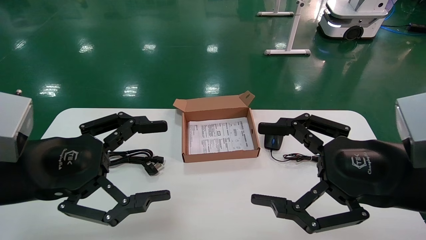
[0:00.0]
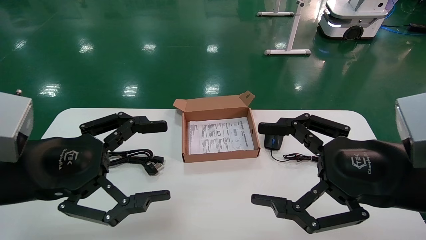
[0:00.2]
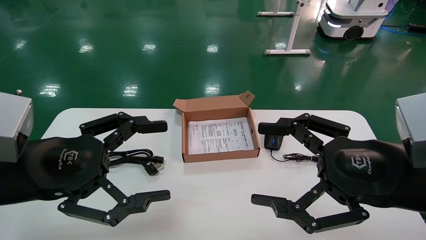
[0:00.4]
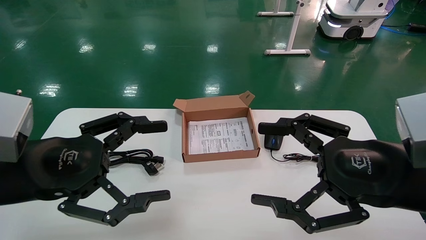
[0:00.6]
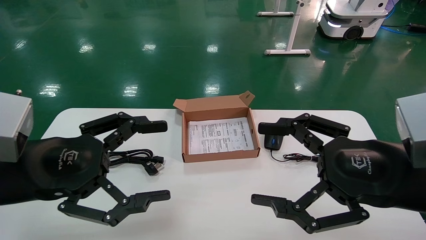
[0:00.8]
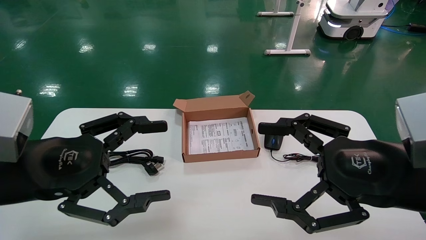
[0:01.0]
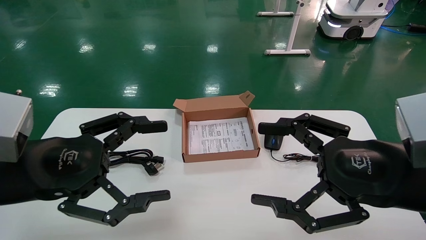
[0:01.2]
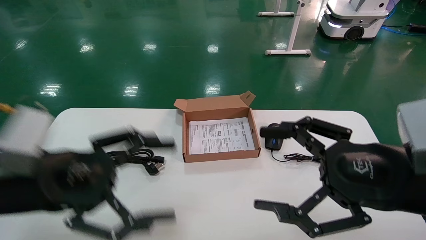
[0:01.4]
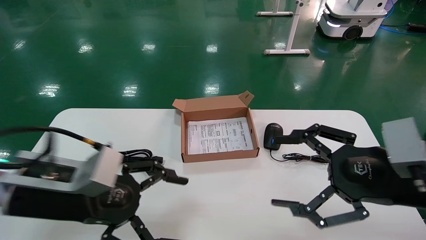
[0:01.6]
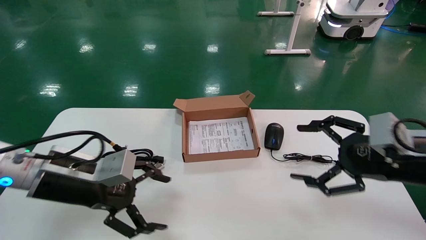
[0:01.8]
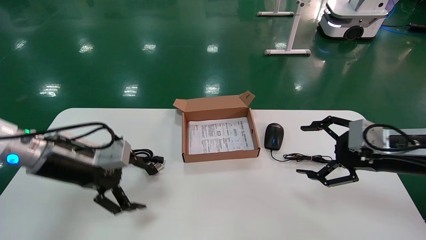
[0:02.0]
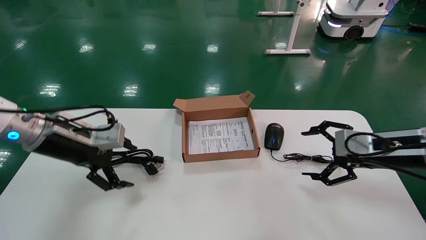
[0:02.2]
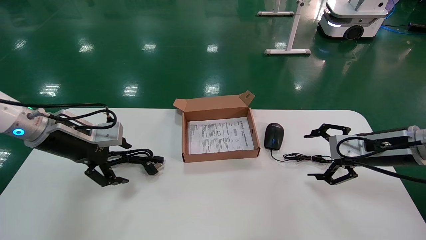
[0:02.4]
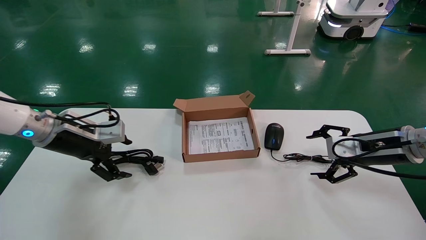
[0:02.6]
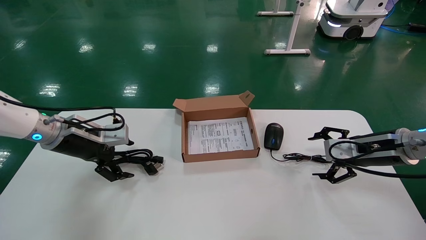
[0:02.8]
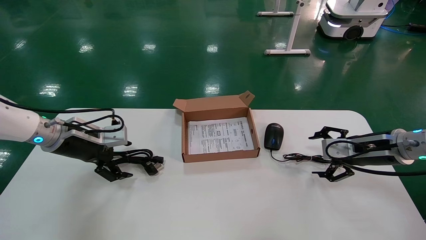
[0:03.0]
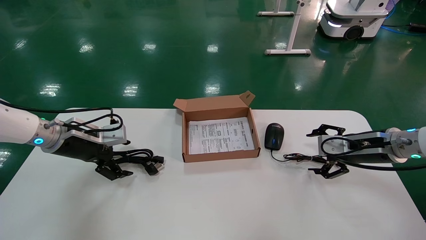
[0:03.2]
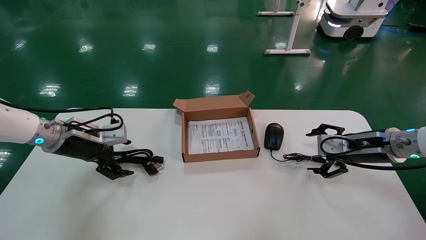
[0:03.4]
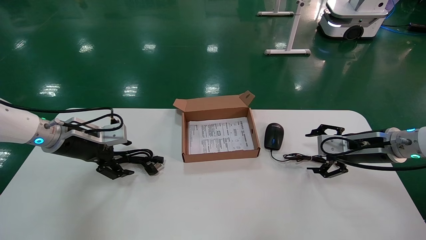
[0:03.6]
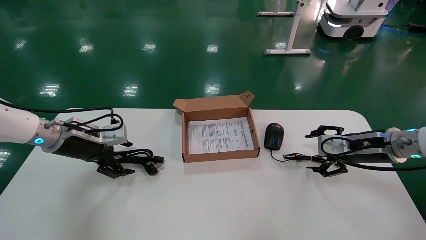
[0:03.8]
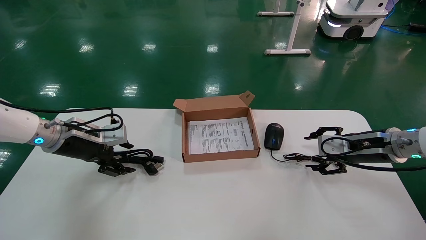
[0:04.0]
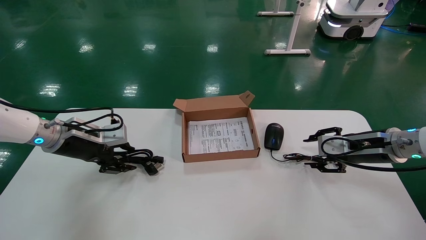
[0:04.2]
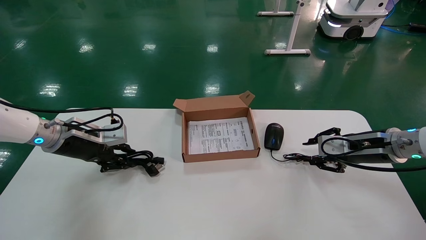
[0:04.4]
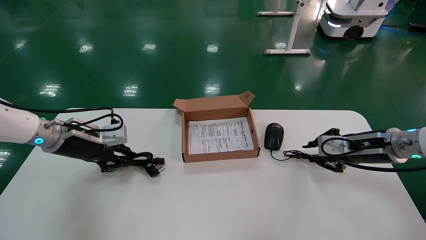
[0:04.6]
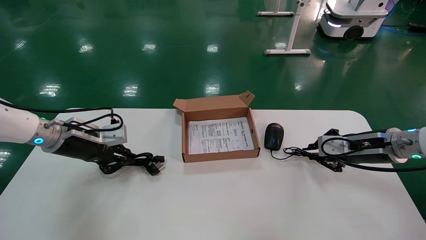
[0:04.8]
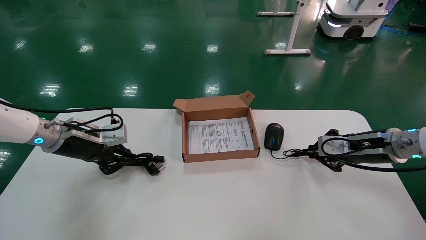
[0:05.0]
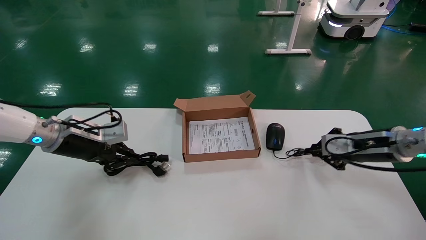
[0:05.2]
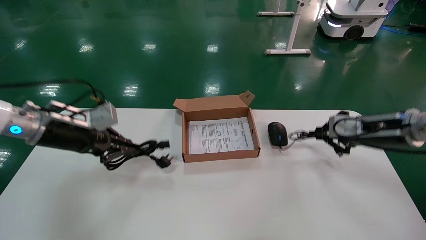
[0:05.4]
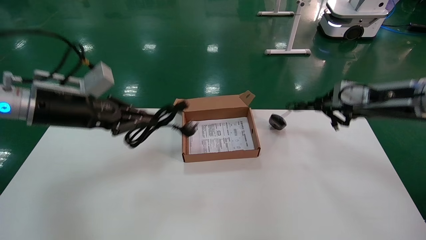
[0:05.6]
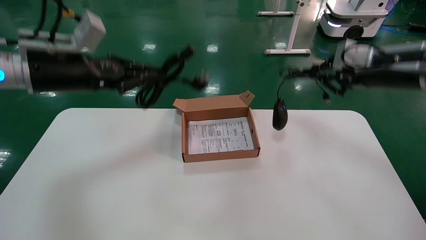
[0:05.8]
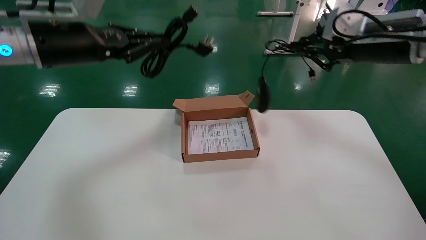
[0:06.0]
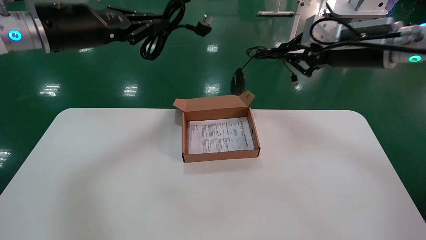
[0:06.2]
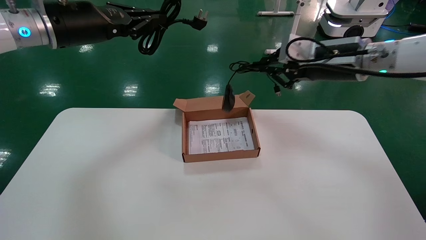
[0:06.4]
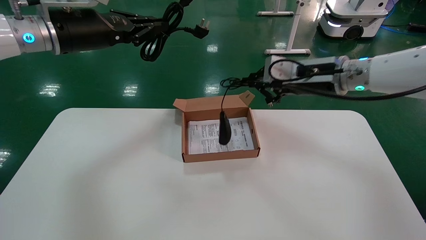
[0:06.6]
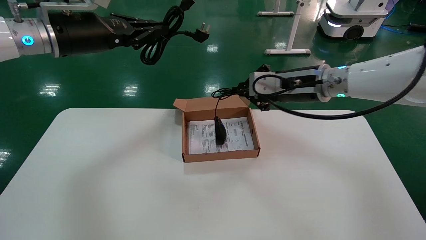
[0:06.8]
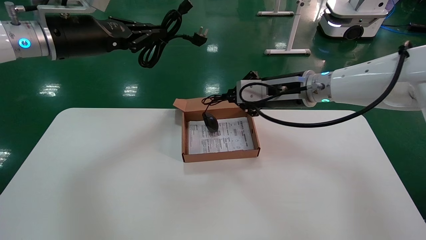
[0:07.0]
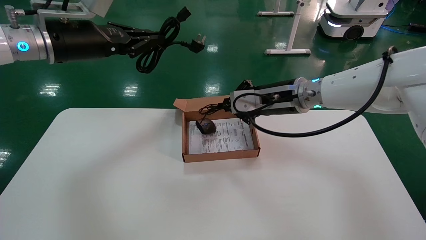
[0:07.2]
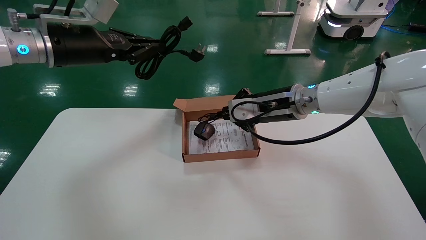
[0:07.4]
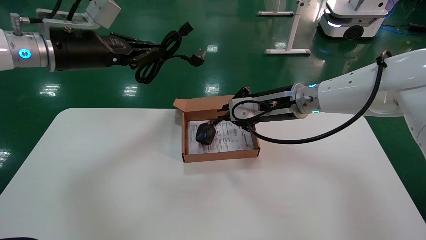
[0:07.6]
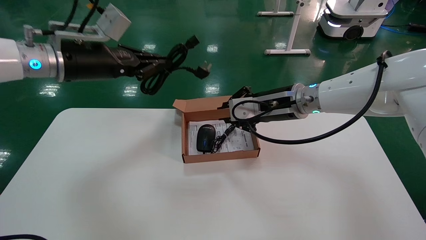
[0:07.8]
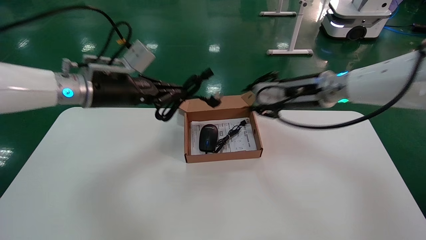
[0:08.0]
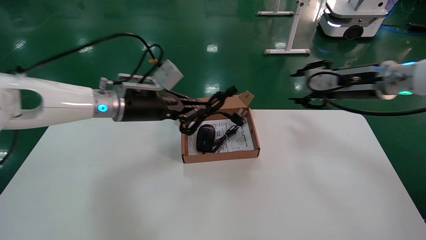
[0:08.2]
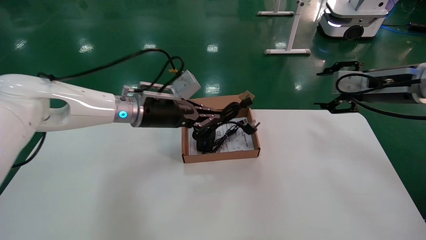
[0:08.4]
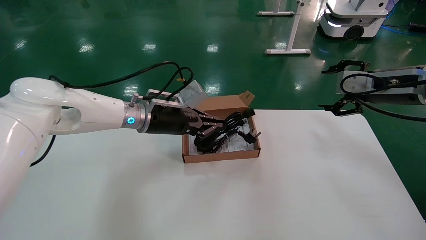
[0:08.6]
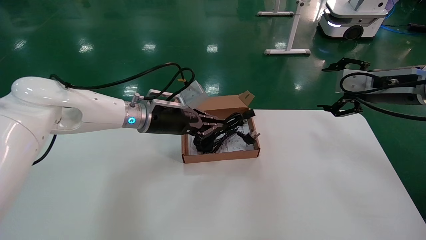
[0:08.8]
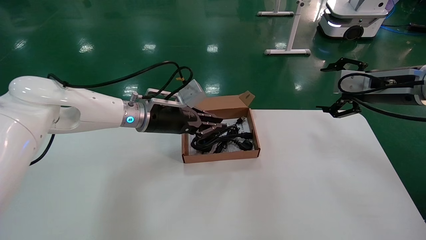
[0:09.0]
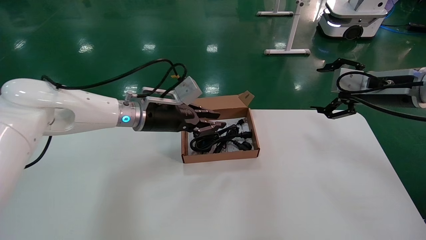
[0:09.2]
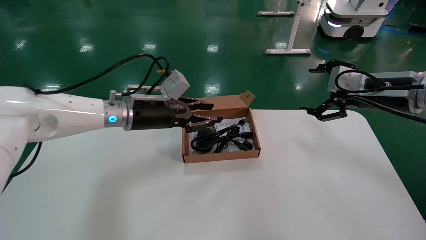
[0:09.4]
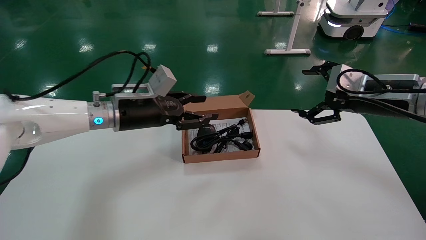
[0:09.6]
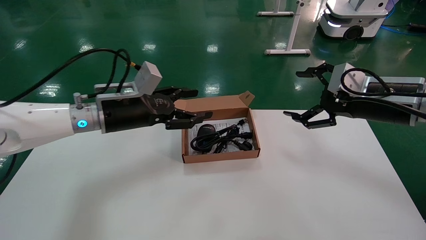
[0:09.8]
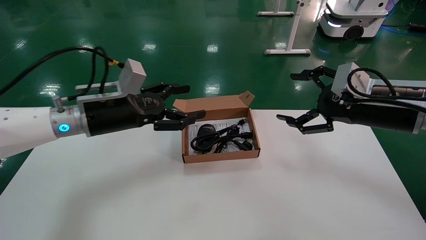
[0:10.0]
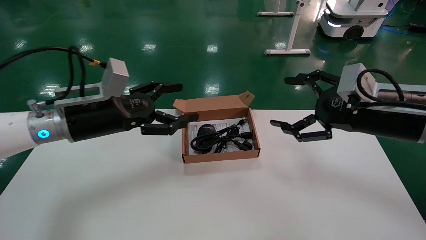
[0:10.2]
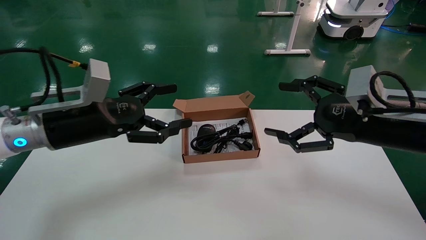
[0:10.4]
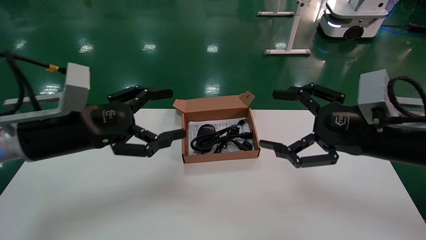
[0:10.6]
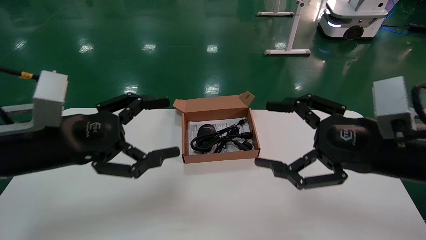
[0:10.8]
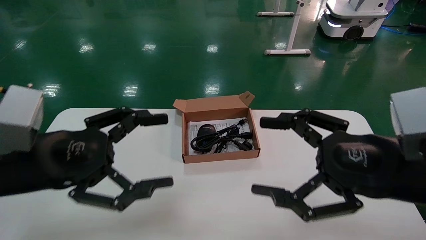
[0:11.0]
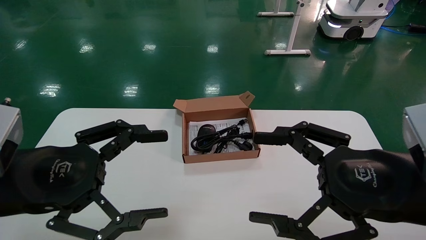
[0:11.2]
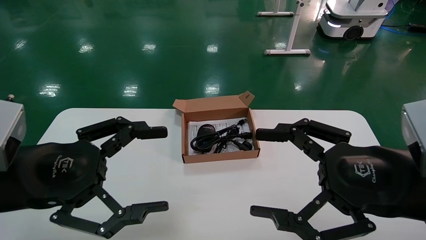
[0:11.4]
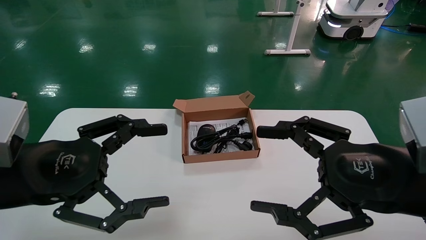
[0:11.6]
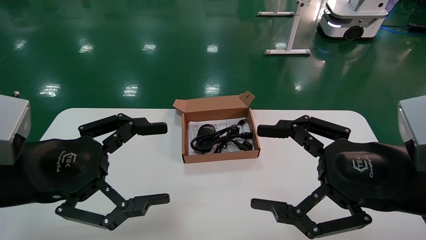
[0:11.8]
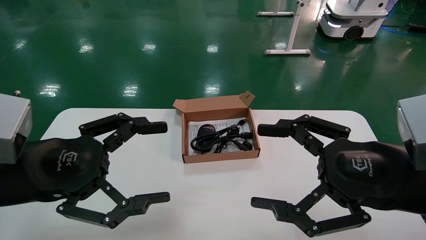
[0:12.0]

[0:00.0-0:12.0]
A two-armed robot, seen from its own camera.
Step, 0:01.8 to 0:05.2: Grab and lift both the mouse and power cord from the accessory packaging area at the same time.
Step, 0:05.4 to 0:09.4: Place the mouse and power cord into the box.
0:00.0 to 0:01.6: The left gripper shifts by about 5 cm. The right gripper shifts by some 5 cm.
0:01.6 to 0:03.0: The right gripper moves forward, roughly 15 cm. Meanwhile the left gripper goes roughly 20 cm forward and to the left.
0:03.0 to 0:04.4: The right gripper closes its fingers, while the left gripper closes its fingers.
0:04.4 to 0:06.0: The two grippers go roughly 20 cm upward. The left gripper closes its fingers. The right gripper closes.
0:06.0 to 0:07.6: The right gripper is displaced to the left and downward by about 20 cm.
0:07.6 to 0:09.0: The left gripper moves downward and to the right, roughly 20 cm, while the right gripper moves to the right, approximately 20 cm, and opens.
0:09.0 to 0:10.4: The grippers both shift backward and to the left by some 15 cm. The left gripper opens its fingers.
0:10.4 to 0:12.0: Both grippers travel together backward, approximately 10 cm.

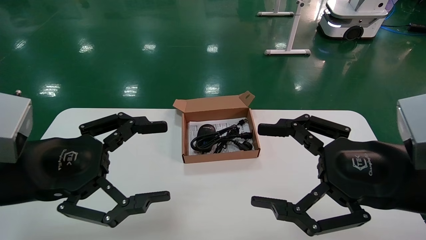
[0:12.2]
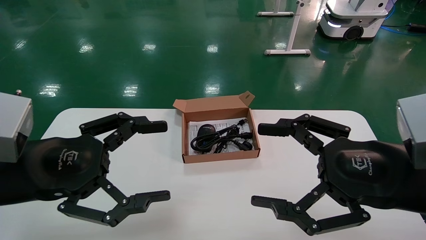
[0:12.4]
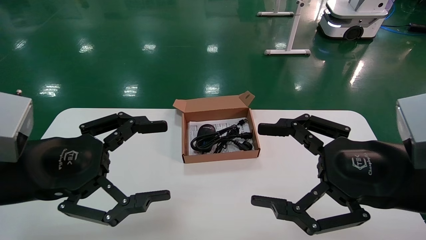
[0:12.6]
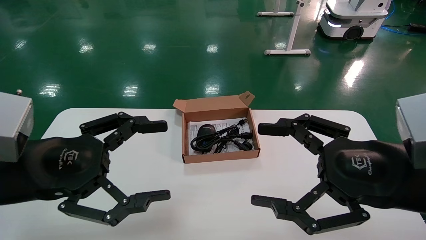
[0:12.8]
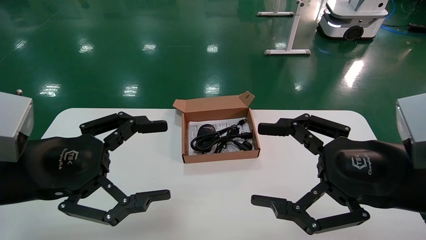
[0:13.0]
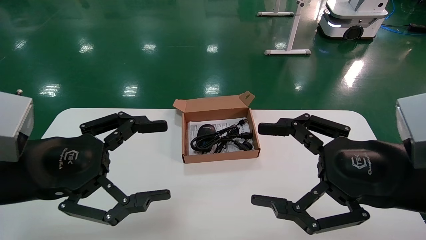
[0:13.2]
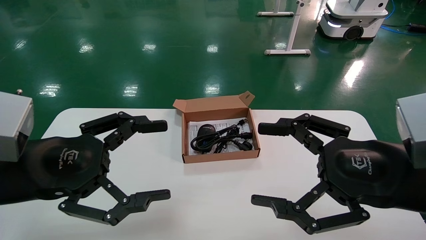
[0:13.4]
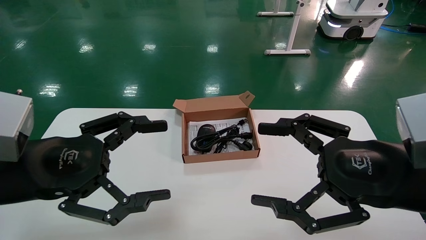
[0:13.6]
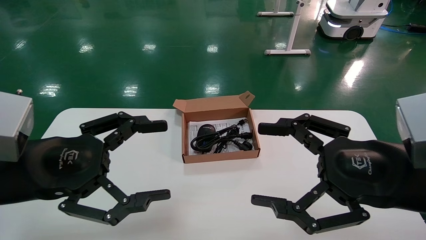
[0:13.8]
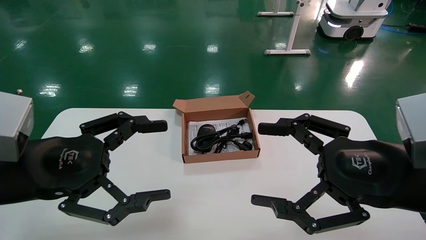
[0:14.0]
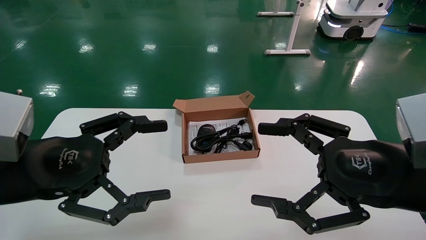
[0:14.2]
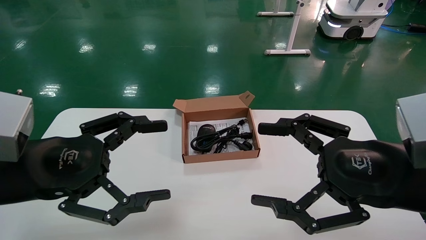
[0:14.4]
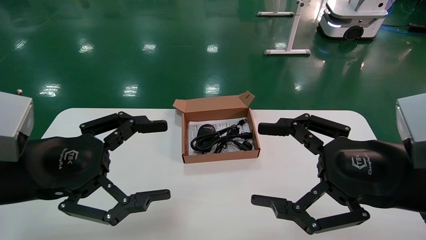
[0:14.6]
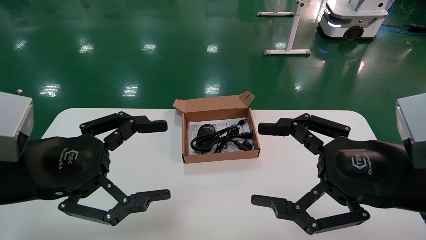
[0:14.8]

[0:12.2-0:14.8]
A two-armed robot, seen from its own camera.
0:12.2 to 0:14.8: Neither gripper changes place.
